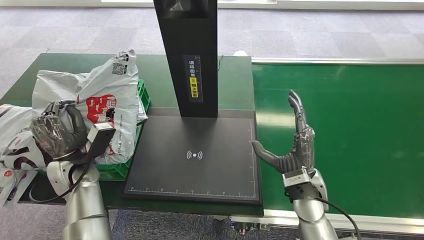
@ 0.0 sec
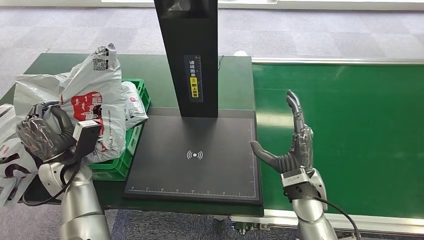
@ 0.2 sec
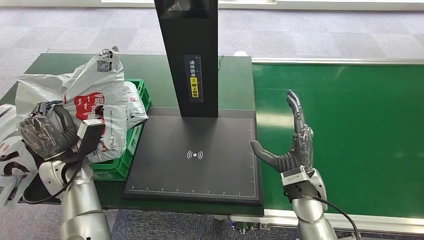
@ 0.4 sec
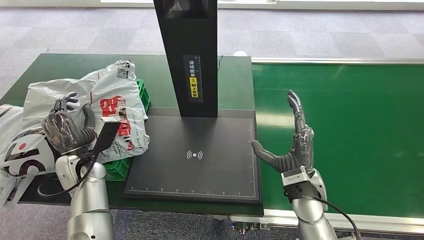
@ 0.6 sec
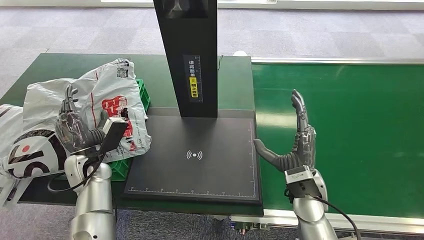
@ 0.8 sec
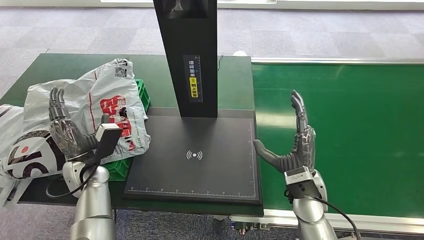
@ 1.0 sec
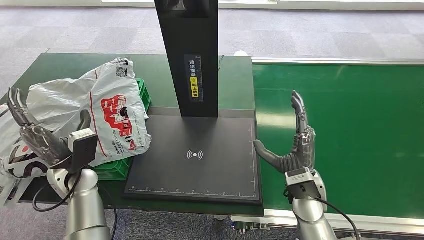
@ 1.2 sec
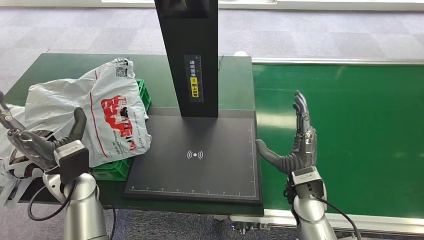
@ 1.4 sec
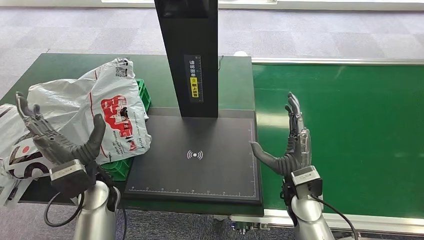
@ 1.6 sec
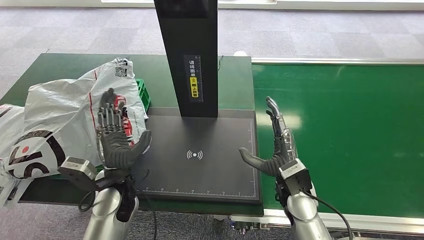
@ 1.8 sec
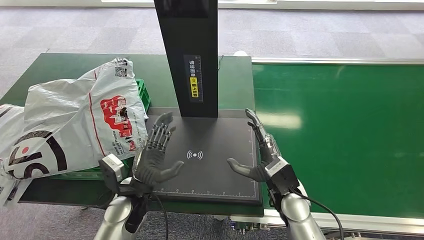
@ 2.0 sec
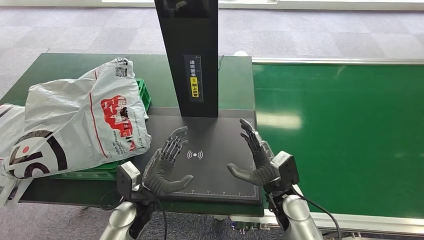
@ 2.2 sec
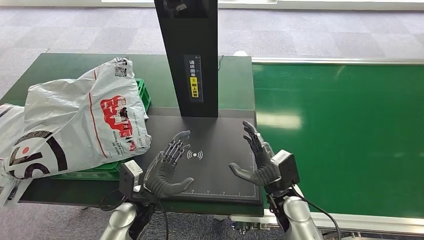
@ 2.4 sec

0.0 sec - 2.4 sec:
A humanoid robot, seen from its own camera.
Step, 0.0 sec - 2.4 sec: Place the package into the parcel locker.
0.0 sec - 1.2 sec: The hands move only a little.
1.2 sec - 2.4 sec: The left hand moves to the right and downward, some 15 cm. Meanwhile the right hand goes approximately 5 cm downward.
